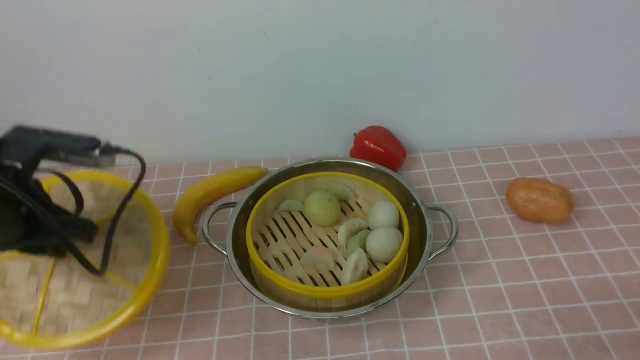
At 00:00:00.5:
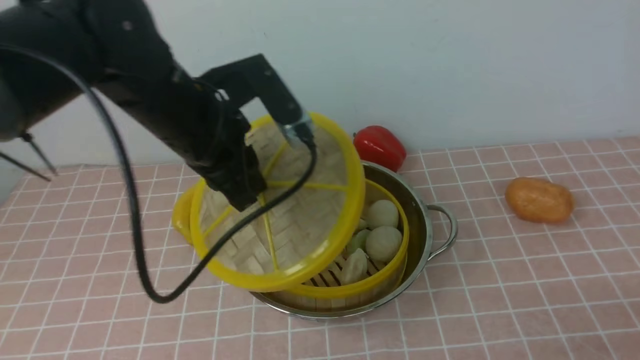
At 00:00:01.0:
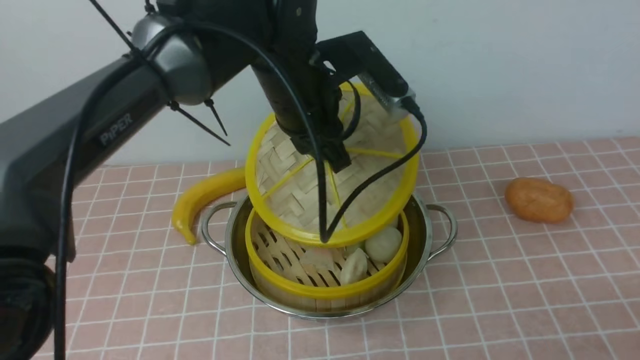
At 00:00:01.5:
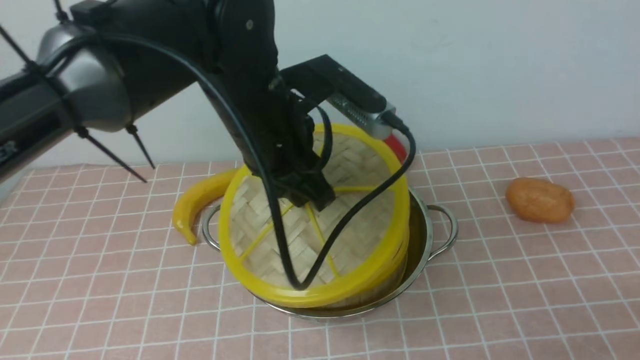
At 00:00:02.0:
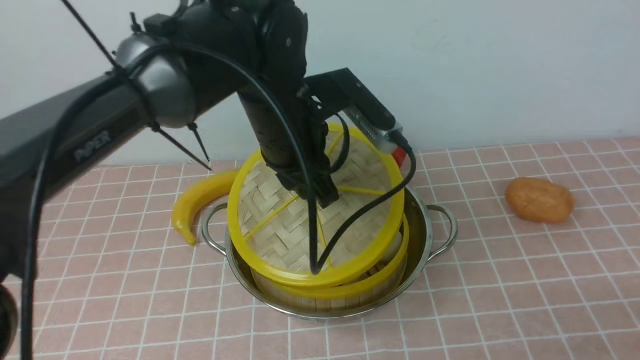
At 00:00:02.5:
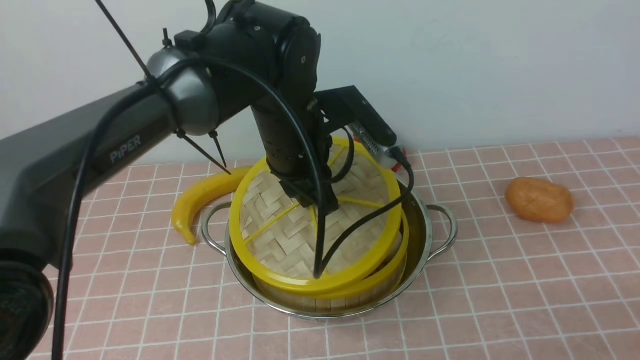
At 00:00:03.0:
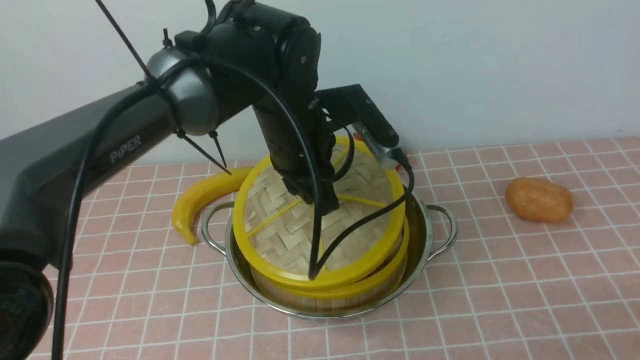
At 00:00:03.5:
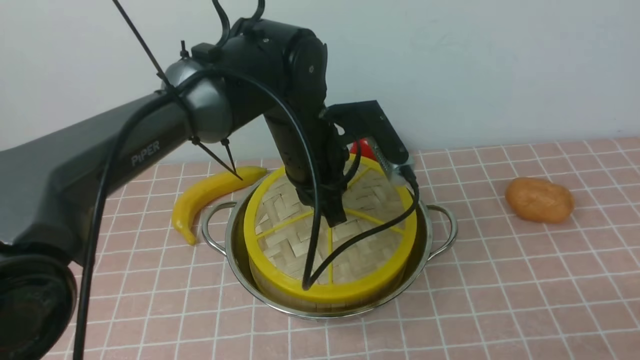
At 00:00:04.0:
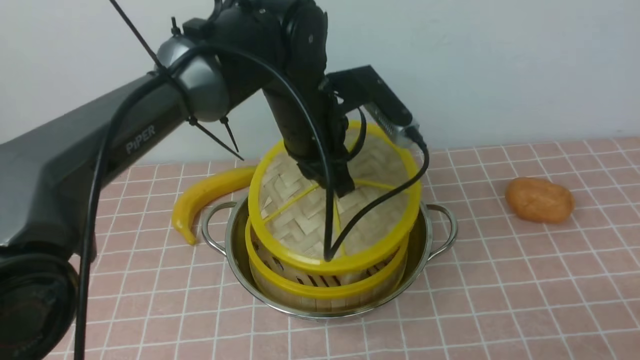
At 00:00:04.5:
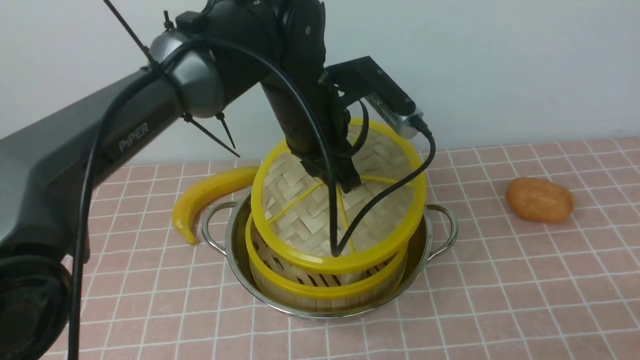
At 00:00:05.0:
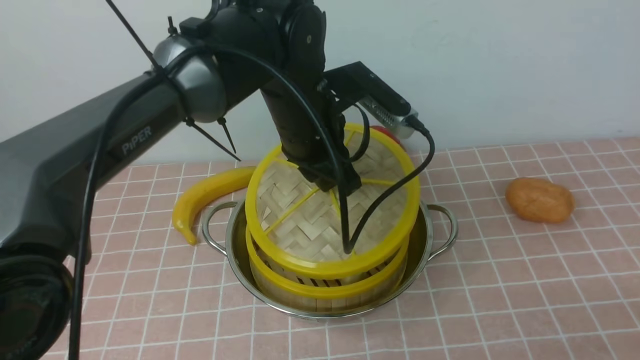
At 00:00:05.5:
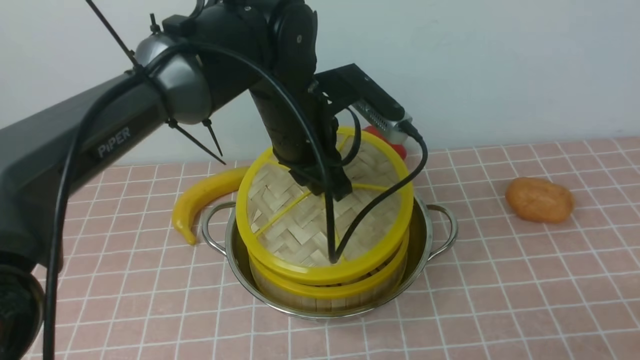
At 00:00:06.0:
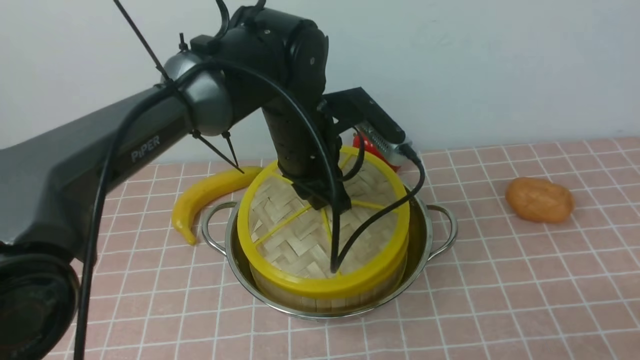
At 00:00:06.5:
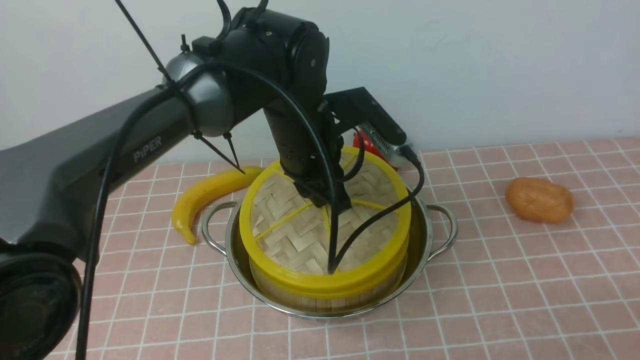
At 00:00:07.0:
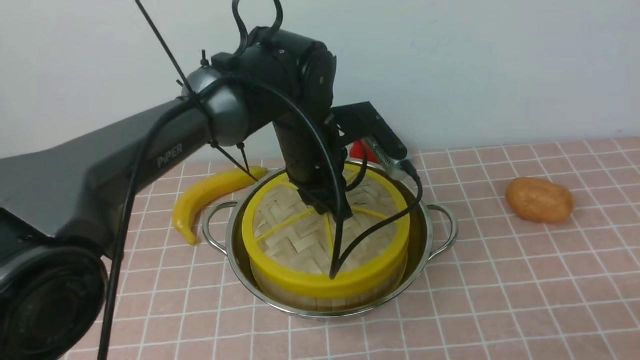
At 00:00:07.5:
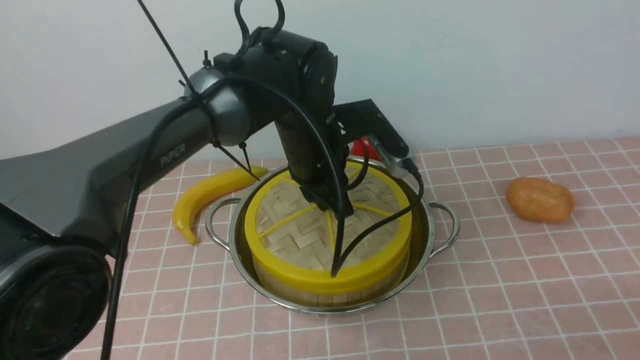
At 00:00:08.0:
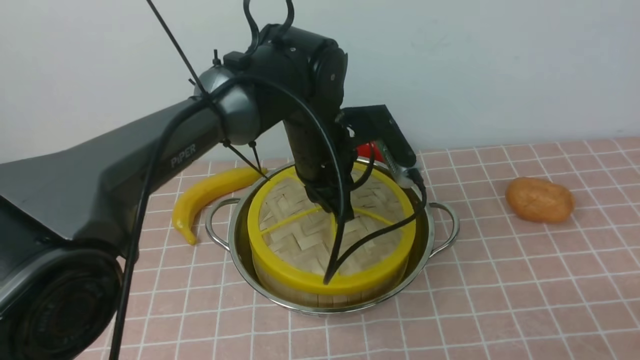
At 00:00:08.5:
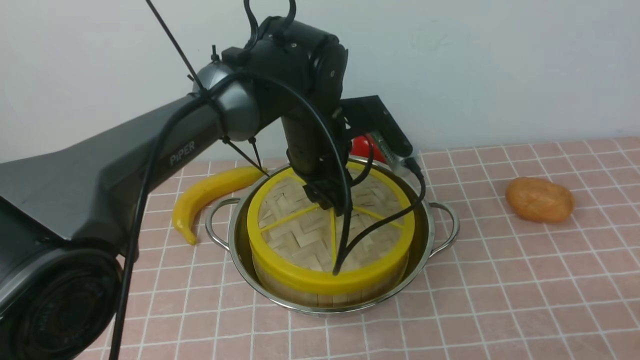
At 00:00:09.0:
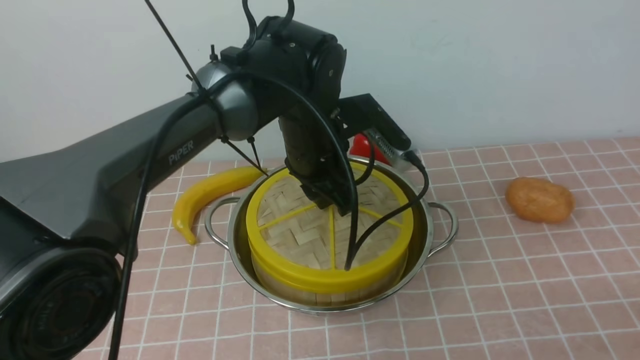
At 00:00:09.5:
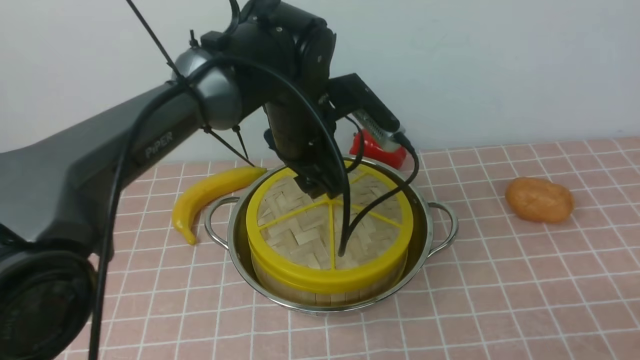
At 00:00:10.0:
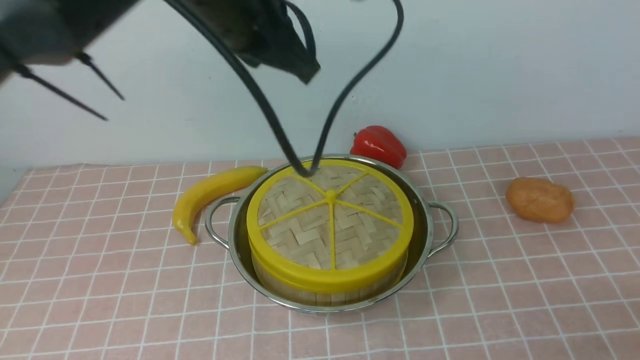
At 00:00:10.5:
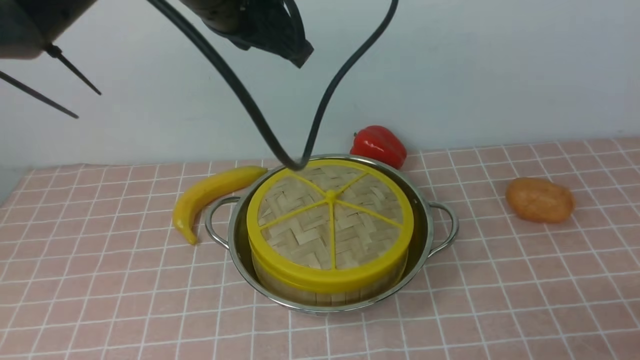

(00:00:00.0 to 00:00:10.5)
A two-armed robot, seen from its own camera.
Task of the whole recording: place the steamer in the pot on the pink tablecloth, and put the lid on the steamer.
Step, 00:00:00.0 - 00:00:09.5: use the left arm to place the steamer lid on the steamer.
00:00:00.0 - 00:00:02.0: The left gripper travels to the right by some 20 cm.
00:00:04.0 - 00:00:06.5: The grippers make only small movements.
00:00:06.5 - 00:00:08.5: The left gripper opens its fingers.
00:00:08.5 - 00:00:10.5: The left gripper is displaced upward by roughly 15 cm, and closes its fingers.

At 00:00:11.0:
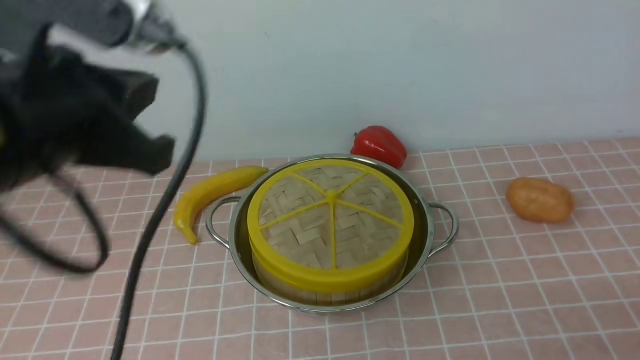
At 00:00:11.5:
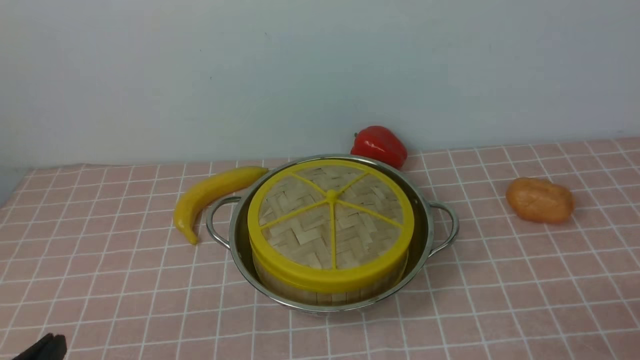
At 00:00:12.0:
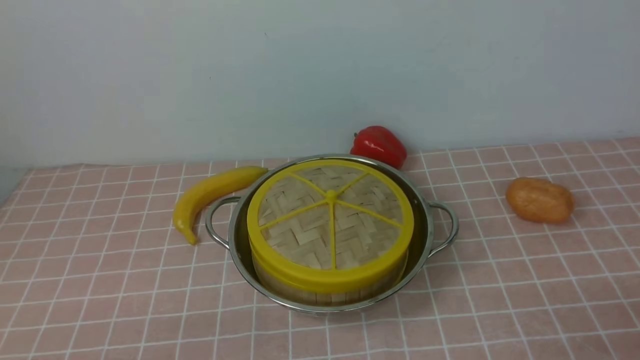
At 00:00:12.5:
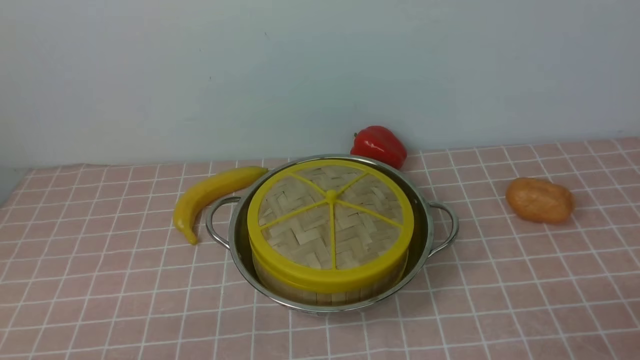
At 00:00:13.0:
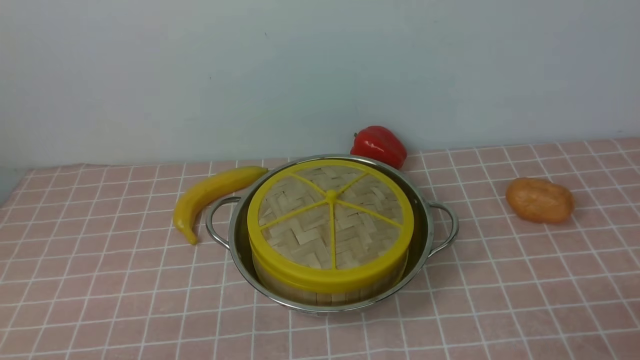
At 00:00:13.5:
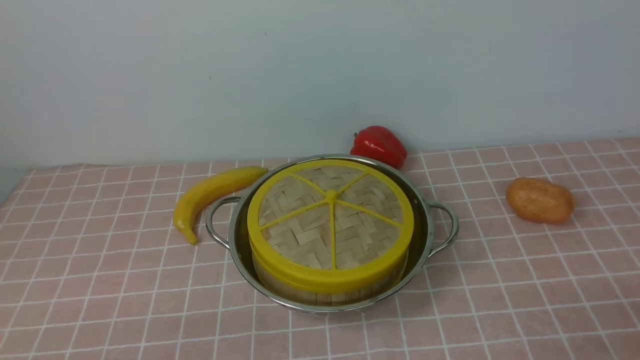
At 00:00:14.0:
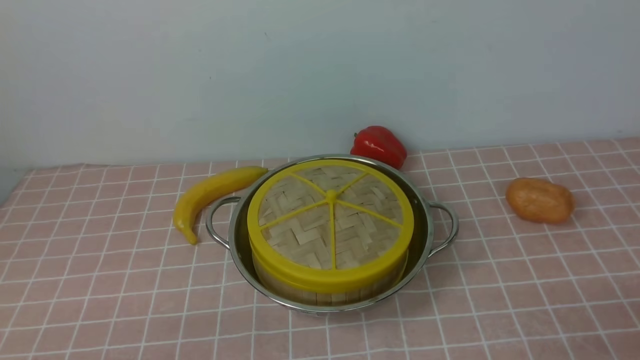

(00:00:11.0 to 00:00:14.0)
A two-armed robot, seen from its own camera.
Task of the whole recording: place the steamer in the pot on the pink tablecloth, and put the lid on the steamer.
00:00:11.0 - 00:00:12.5: The left gripper heads downward and backward, covering about 25 cm.
00:00:12.5 - 00:00:14.0: Both grippers stay put.
